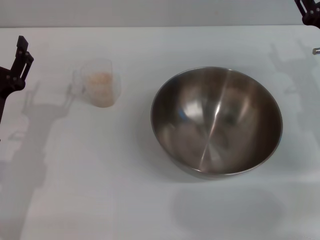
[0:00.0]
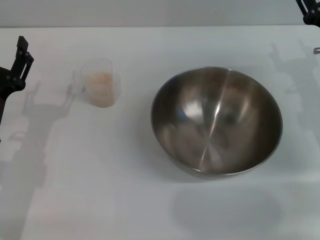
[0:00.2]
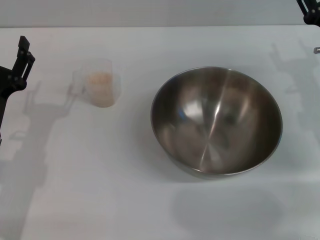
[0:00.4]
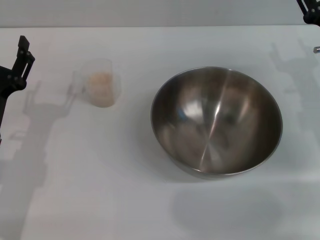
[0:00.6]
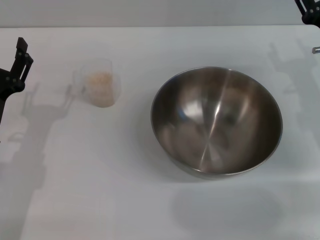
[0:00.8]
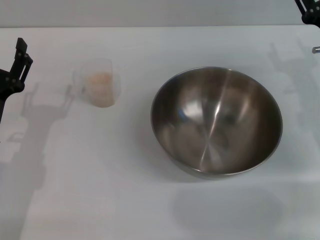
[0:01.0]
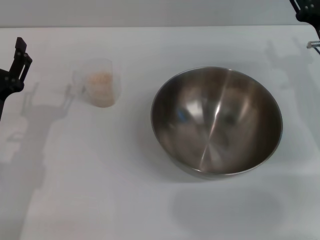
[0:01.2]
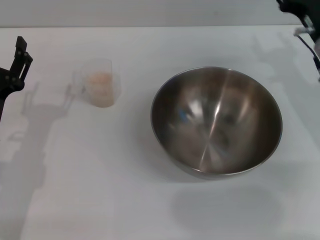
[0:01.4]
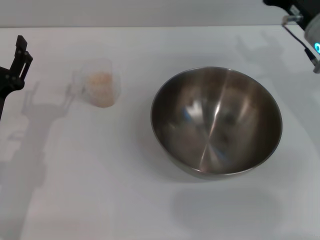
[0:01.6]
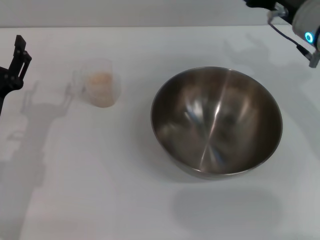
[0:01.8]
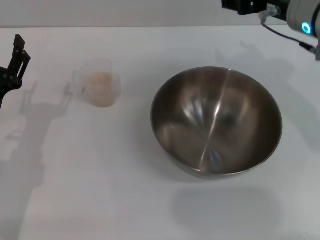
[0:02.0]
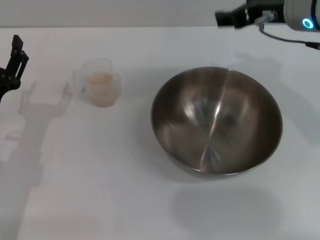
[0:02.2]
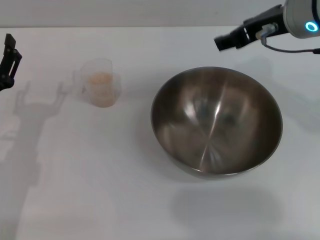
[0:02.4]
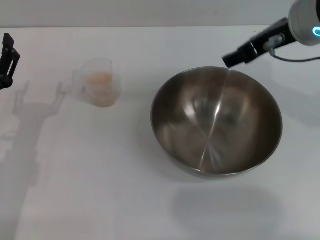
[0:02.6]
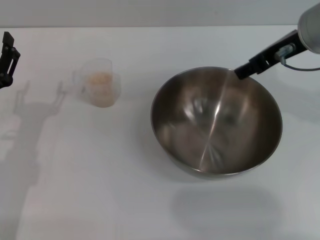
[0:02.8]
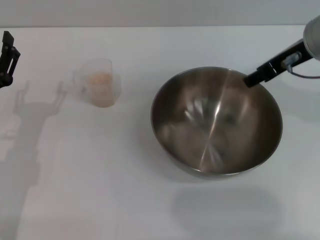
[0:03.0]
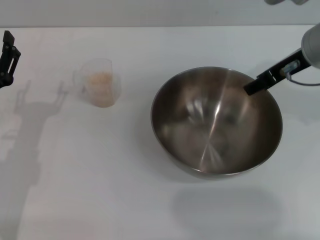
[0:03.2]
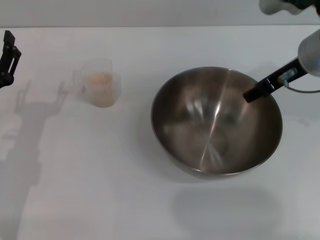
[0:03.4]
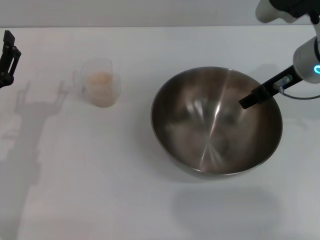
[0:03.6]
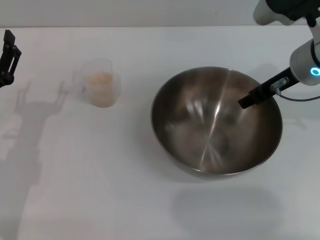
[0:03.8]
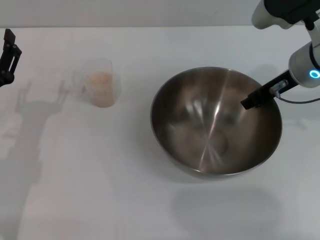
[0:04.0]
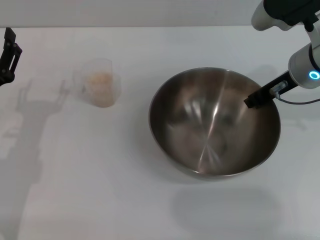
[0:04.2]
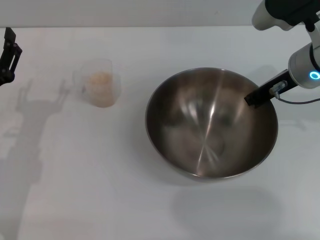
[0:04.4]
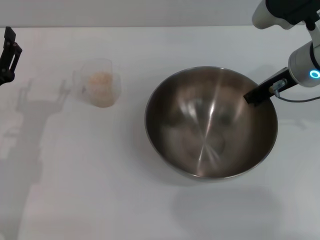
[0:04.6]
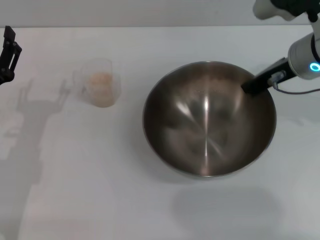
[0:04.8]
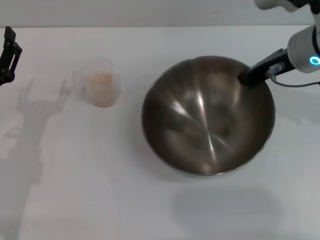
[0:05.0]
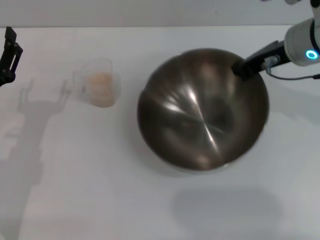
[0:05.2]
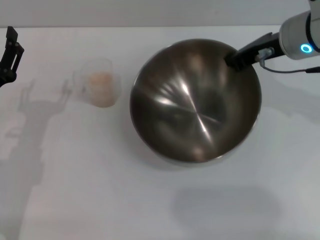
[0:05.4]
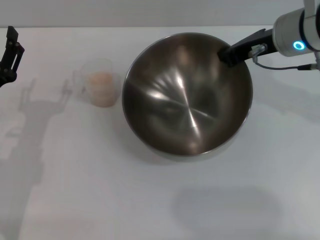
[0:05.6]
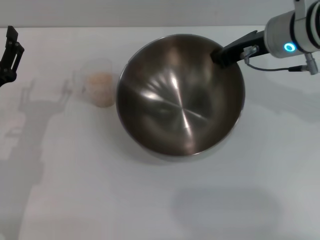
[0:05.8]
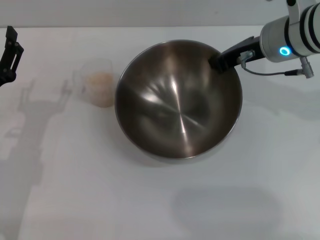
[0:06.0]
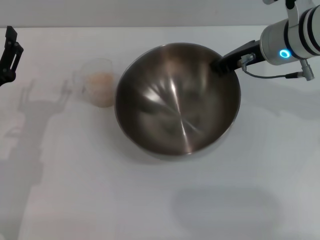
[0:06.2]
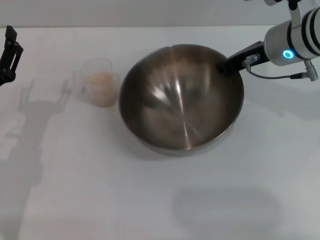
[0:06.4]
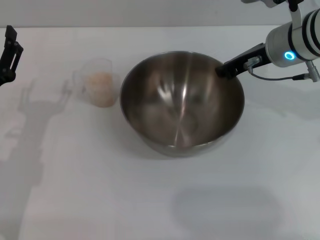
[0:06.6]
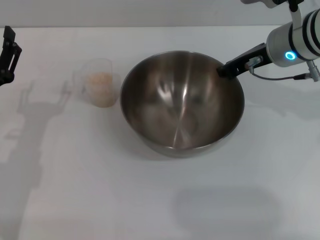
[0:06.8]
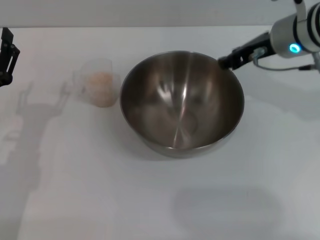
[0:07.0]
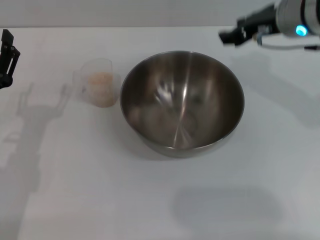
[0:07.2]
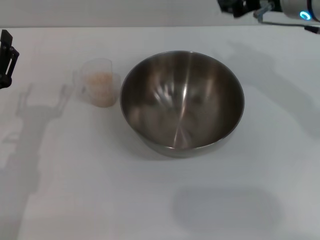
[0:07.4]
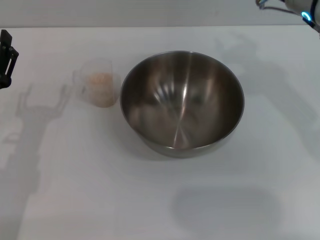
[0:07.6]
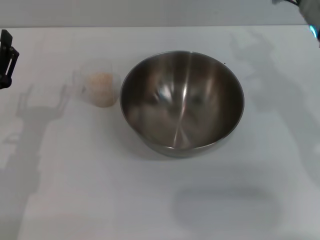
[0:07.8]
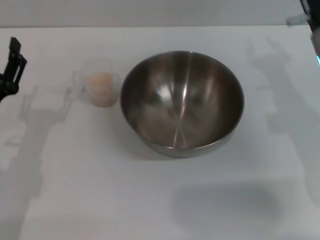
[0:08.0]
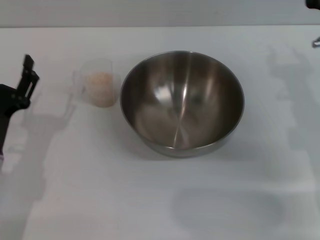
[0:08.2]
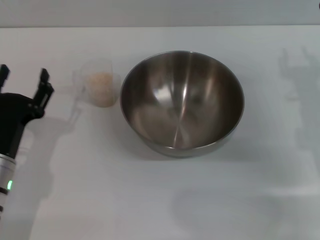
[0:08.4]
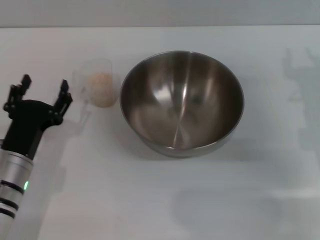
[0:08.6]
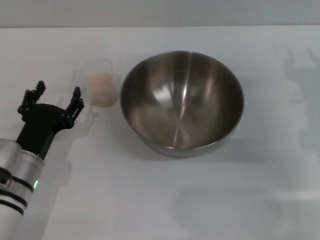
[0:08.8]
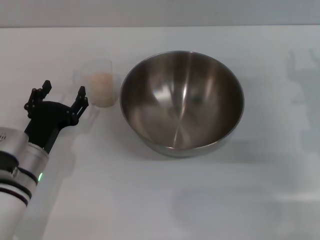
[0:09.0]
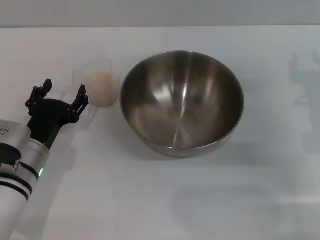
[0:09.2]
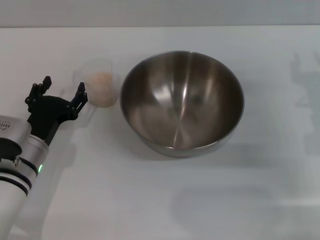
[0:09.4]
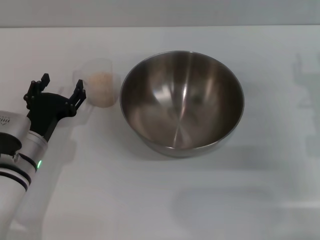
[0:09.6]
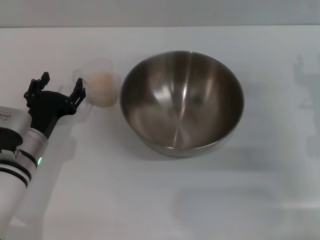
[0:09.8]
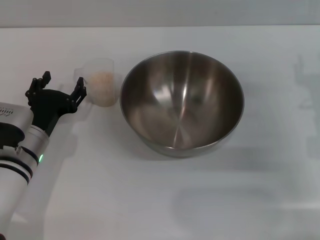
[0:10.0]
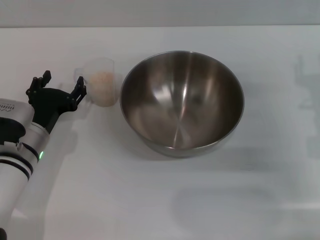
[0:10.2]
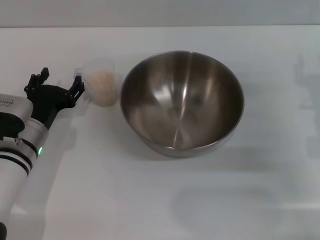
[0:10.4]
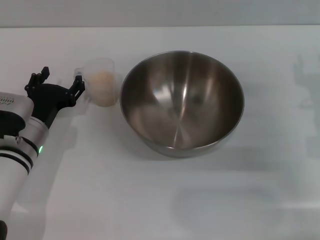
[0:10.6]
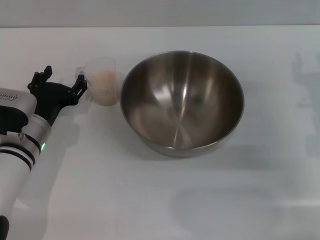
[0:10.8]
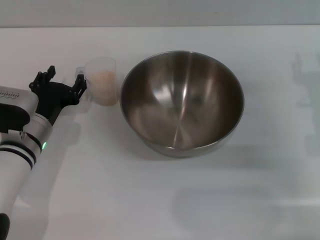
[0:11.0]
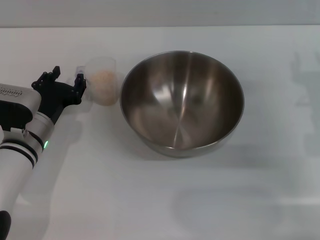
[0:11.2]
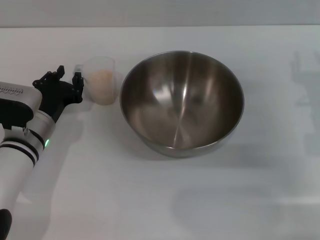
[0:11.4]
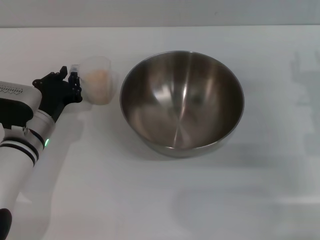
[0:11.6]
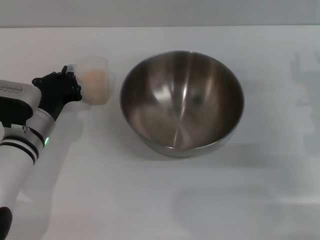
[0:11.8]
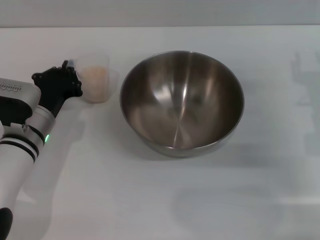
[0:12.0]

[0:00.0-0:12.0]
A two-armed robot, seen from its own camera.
Task of the whole recording: Place the bowl in the middle of the table with one hand and pour the rice from the grain cup into it with the other hand.
Step, 0:00.0 to 0:05.0: Pick up the bowl with the right gripper.
Step, 0:05.2 to 0:07.2: Place the bowl in the center of view with the right gripper.
0:00.0 to 0:01.6: The right gripper goes approximately 5 cm upward.
0:01.6 to 0:03.0: The right gripper moves upward, some 5 cm.
0:03.0 to 0:04.4: The right gripper ends up about 5 cm from where it was, and closes up.
0:06.0 to 0:07.6: The right gripper opens.
0:07.6 to 0:09.0: The right gripper is displaced downward, to the right and backward by roughly 15 cm. Meanwhile the left gripper shifts by some 5 cm.
0:09.0 to 0:10.4: The left gripper moves forward, some 5 cm.
0:10.4 to 0:12.0: The left gripper closes its fingers.

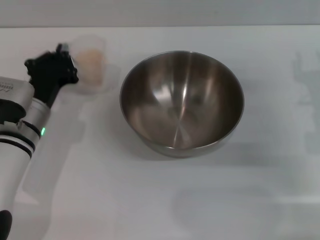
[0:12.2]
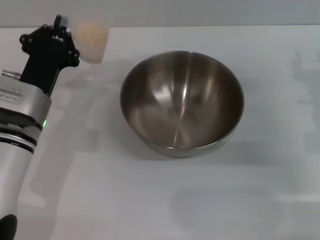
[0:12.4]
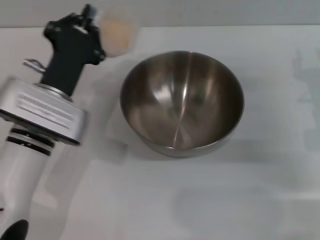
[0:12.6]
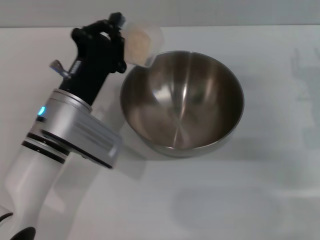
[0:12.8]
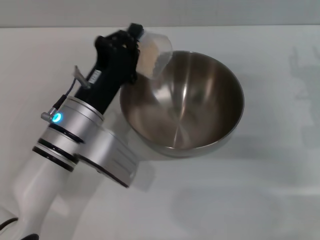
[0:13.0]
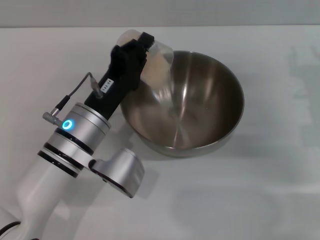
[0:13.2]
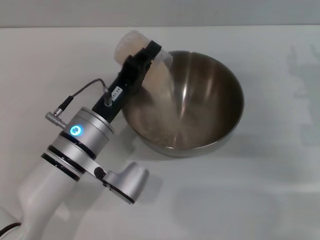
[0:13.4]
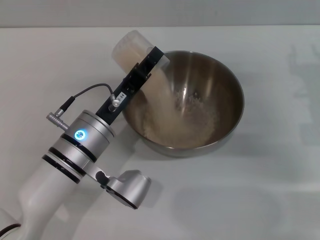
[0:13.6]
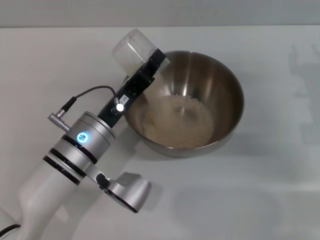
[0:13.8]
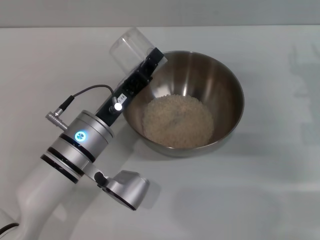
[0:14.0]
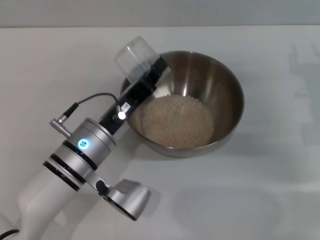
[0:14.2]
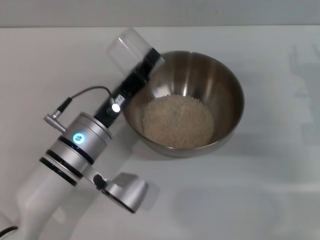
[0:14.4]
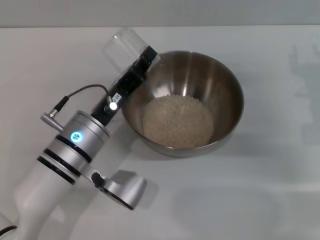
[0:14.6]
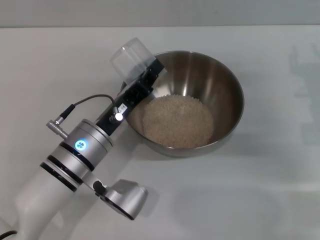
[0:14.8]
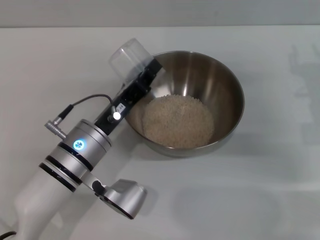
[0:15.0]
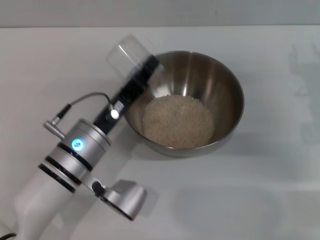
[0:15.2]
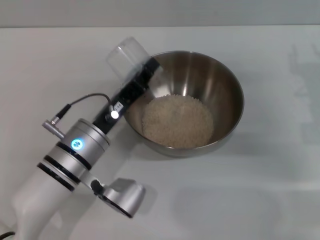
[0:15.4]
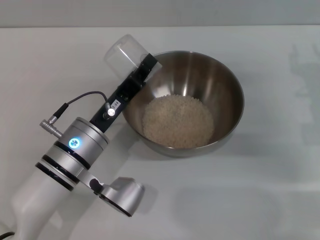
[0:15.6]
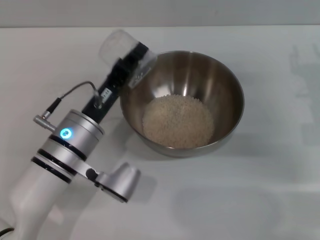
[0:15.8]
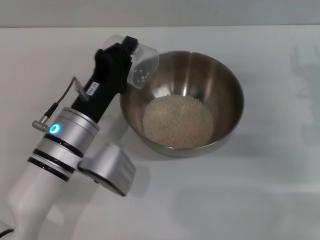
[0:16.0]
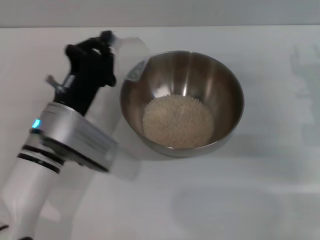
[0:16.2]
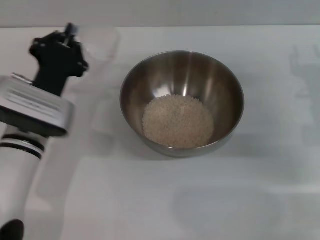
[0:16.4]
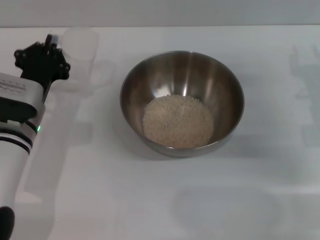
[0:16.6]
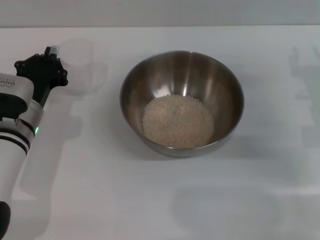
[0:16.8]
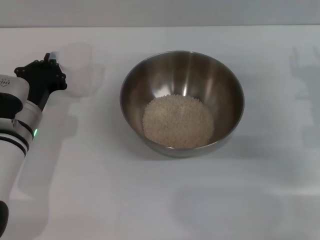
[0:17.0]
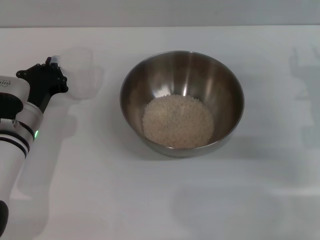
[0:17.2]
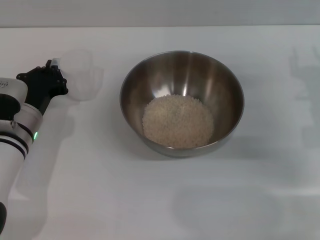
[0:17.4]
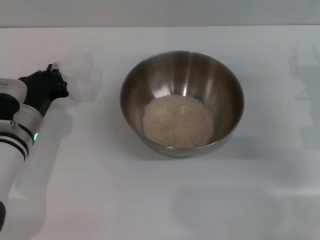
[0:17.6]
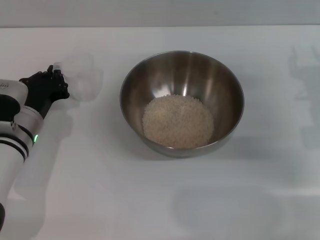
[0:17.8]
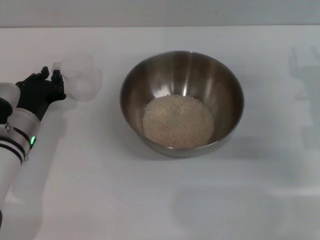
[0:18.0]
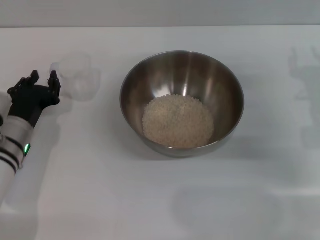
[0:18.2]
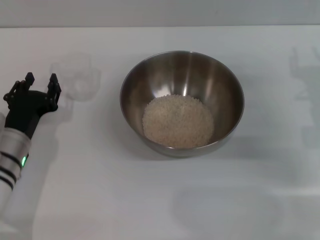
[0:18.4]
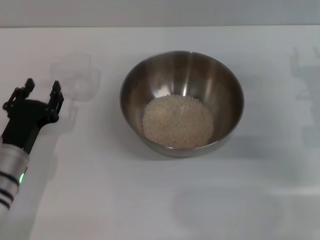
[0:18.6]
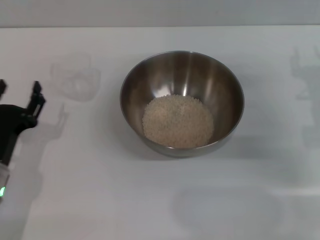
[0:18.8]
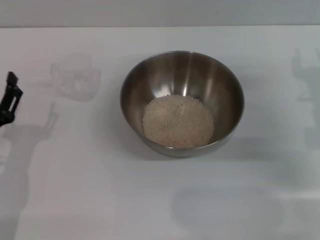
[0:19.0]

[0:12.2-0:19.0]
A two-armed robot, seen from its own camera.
Task of the whole recording: Place the bowl in the middle of the table with one hand and pour the rice from the grain cup into it with the other hand.
Step, 0:12.6 to 0:16.2: Pour the rice from the cup into the bowl with the left gripper.
Step, 0:16.4 to 0:18.6: Place the cup on the table with the left gripper.
0:12.2 to 0:13.6: The left gripper heads to the right, covering about 10 cm.
0:13.6 to 0:15.0: The grippers make only small movements.
0:16.2 to 0:17.6: The left gripper goes roughly 5 cm to the left.
0:17.6 to 0:19.0: The left gripper is displaced backward by approximately 10 cm, and opens up.

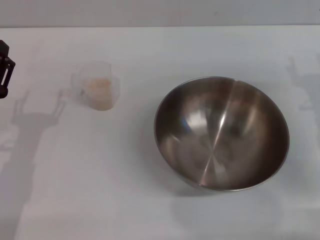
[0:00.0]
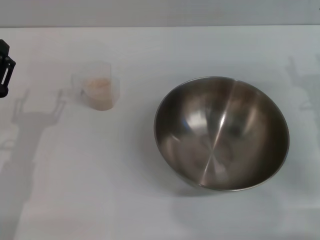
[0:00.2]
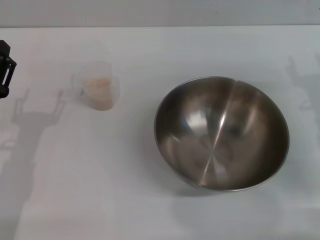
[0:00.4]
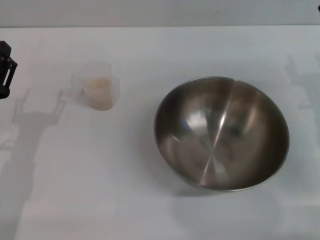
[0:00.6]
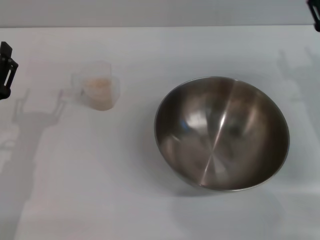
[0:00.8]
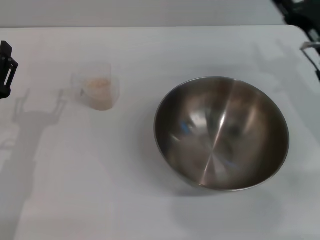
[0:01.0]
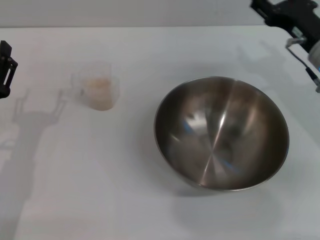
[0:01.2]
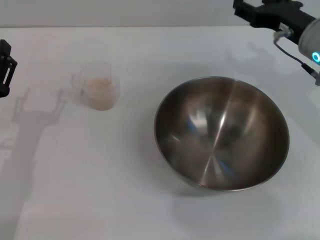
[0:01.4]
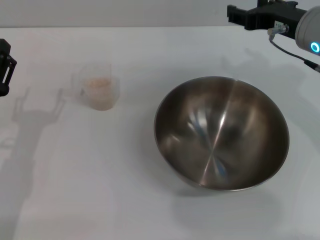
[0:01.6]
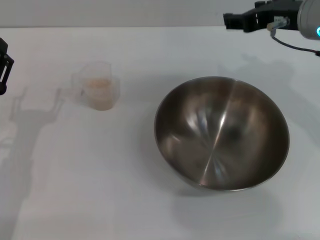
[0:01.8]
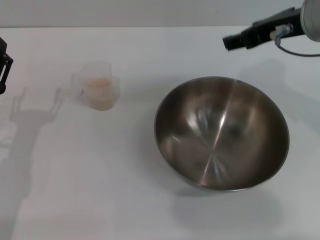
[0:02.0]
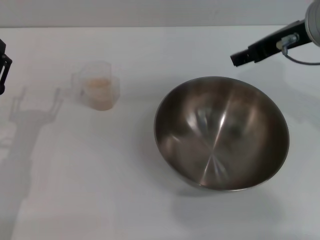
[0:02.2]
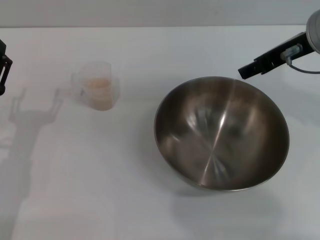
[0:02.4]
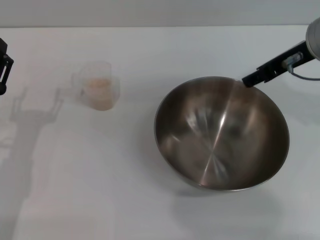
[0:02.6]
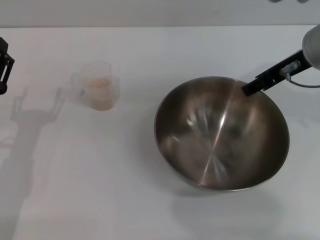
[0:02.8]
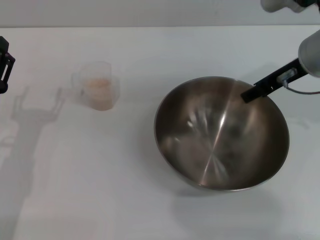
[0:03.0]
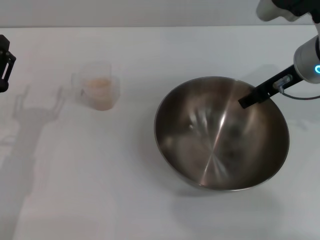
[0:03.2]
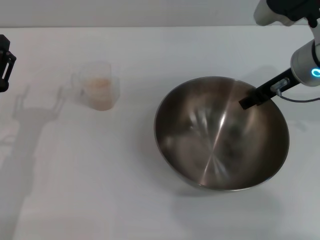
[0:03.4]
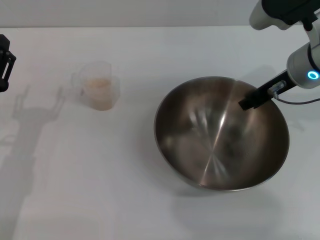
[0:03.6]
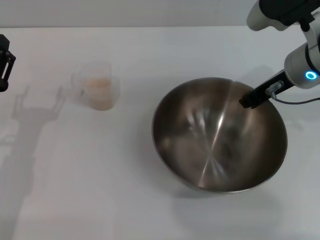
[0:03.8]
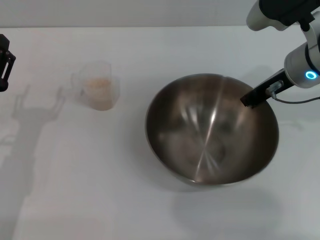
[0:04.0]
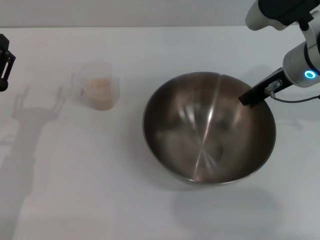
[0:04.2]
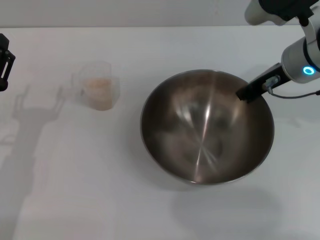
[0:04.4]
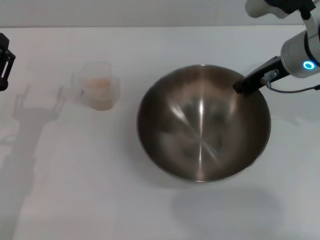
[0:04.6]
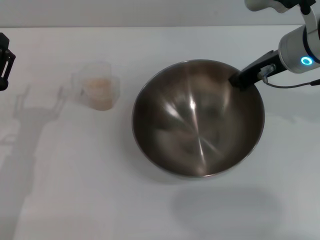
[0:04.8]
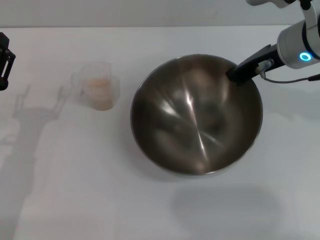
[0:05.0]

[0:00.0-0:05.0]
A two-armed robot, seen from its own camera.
Task of the whole recording: Place the bowl in the middle of the table with one hand and pour the rice from the grain cup into it with the other hand.
0:00.0 to 0:01.6: The right gripper moves upward, to the left and forward, approximately 15 cm.
0:03.4 to 0:05.0: The right gripper closes its fingers.
